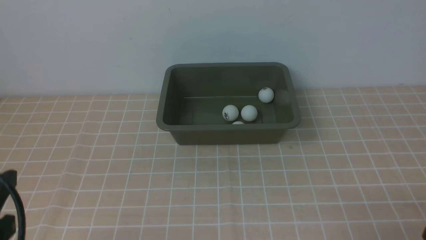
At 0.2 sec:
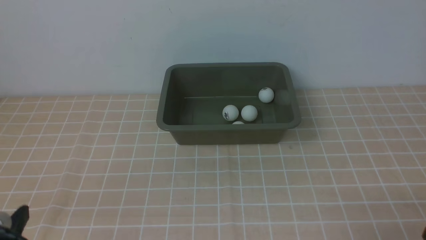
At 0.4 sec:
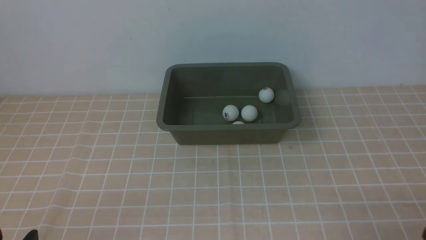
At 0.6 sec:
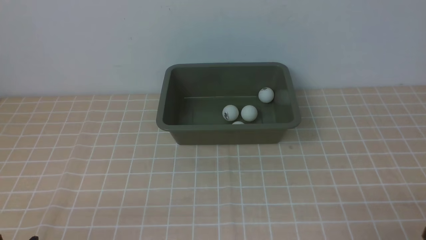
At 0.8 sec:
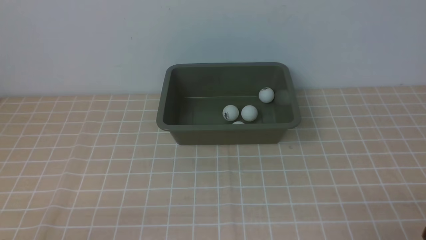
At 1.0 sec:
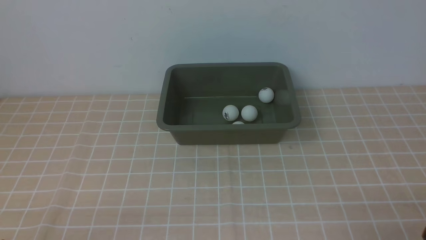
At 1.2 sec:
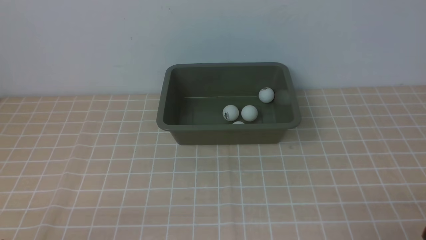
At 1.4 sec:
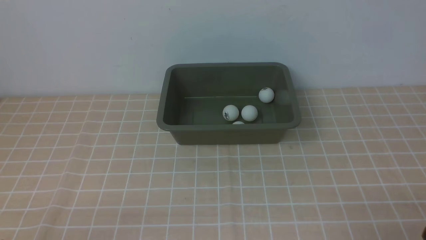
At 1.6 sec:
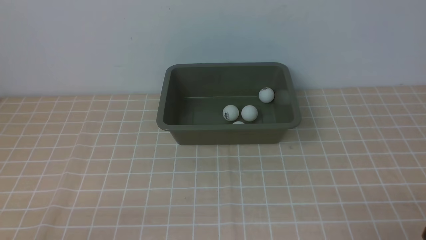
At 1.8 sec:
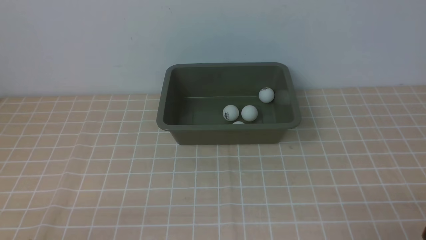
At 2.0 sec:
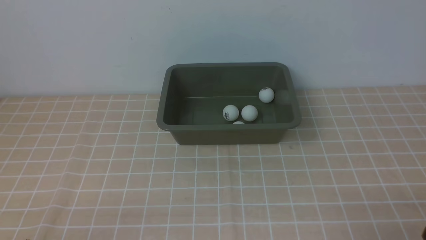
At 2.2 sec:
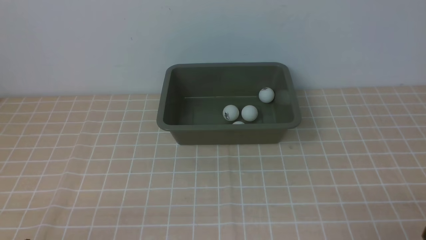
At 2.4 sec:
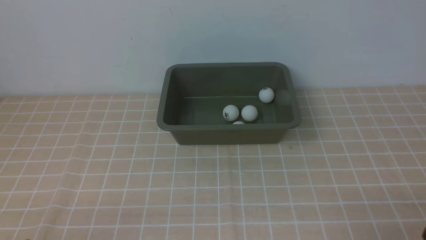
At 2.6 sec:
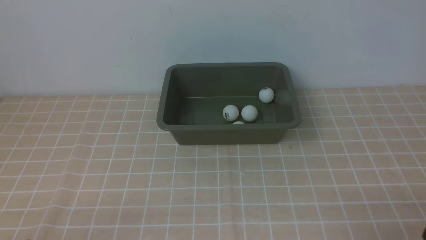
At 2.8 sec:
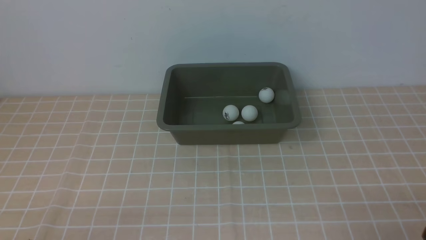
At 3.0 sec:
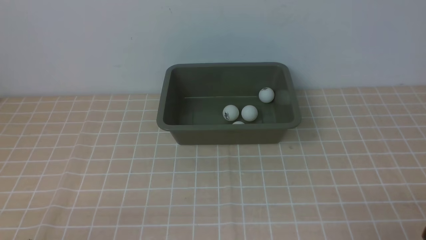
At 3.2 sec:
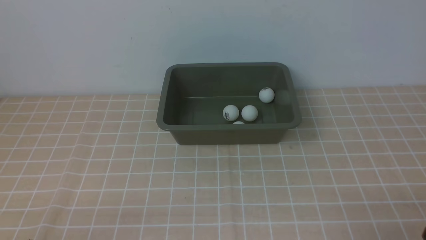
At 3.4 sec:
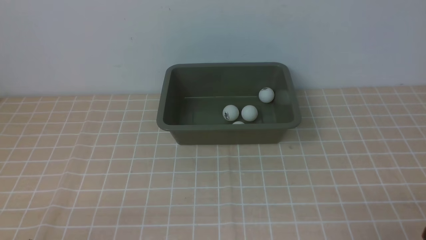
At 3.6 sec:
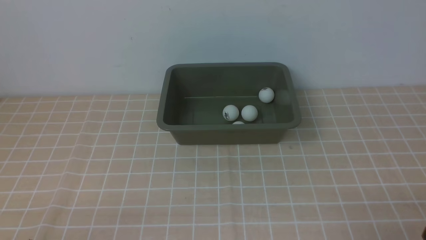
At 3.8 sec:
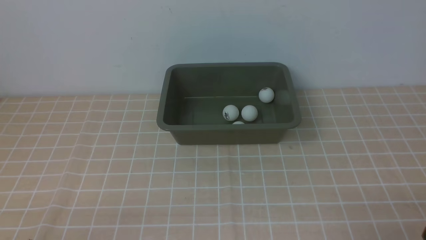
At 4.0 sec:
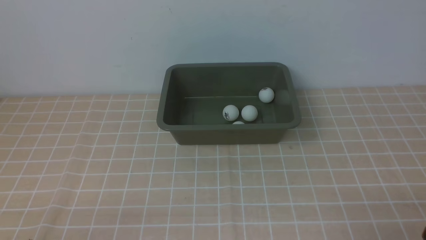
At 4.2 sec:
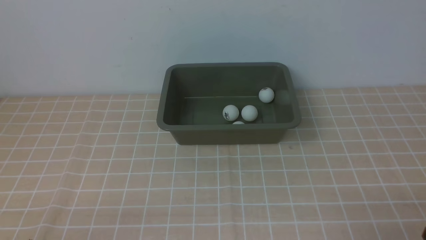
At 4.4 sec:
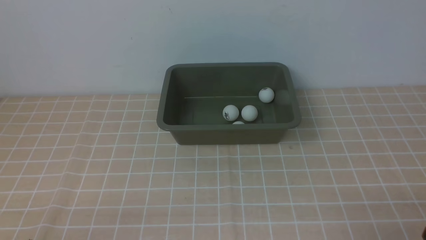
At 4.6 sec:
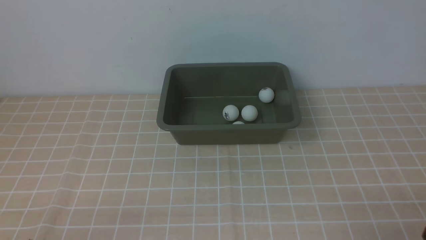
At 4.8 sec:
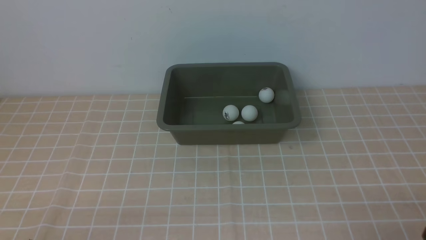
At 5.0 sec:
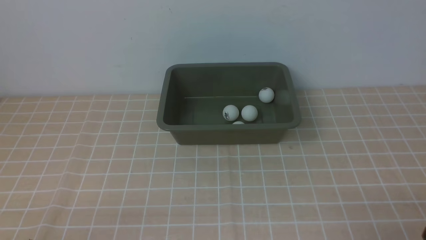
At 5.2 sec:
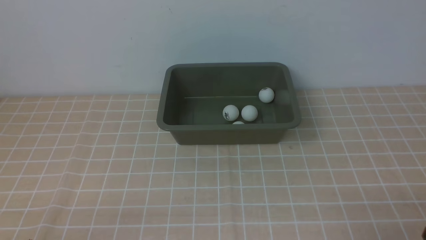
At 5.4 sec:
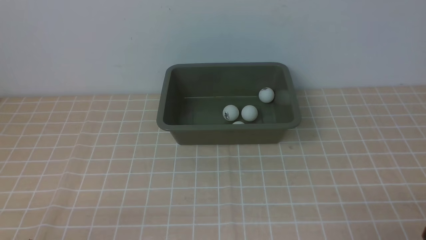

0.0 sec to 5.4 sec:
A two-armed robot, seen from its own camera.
0.0 sec to 1.4 sec: The left gripper shifts about 15 cm downward.
1.4 sec to 5.4 sec: Neither gripper changes place.
